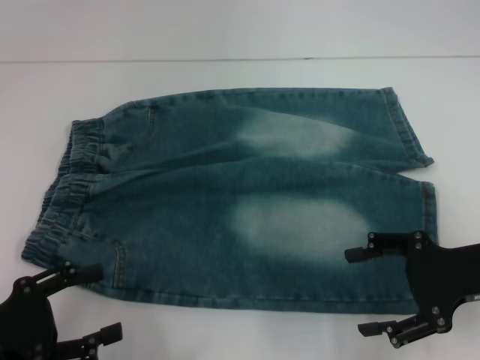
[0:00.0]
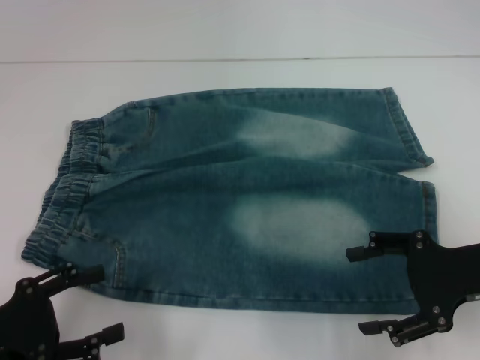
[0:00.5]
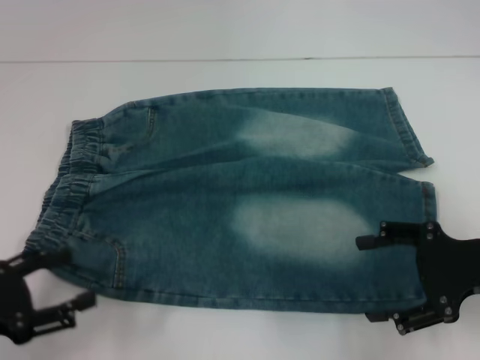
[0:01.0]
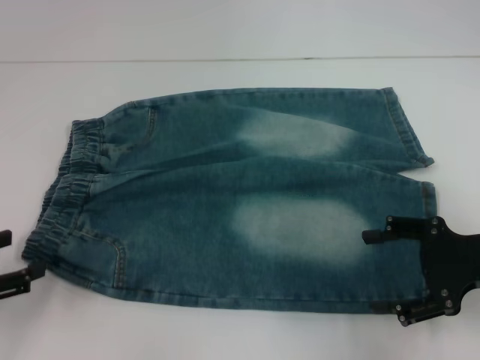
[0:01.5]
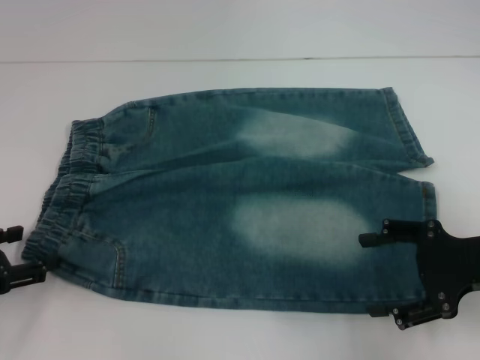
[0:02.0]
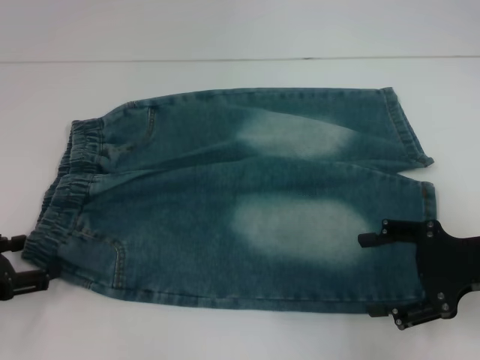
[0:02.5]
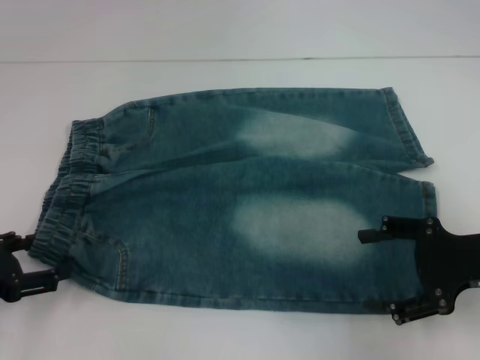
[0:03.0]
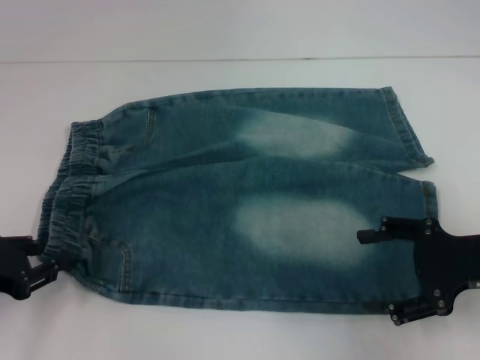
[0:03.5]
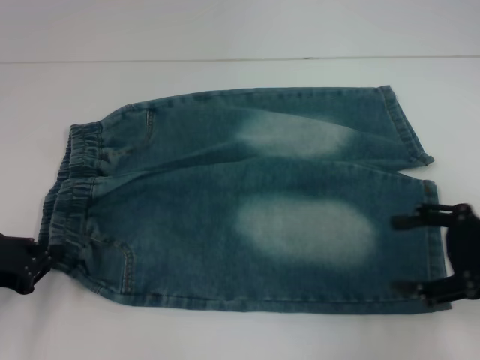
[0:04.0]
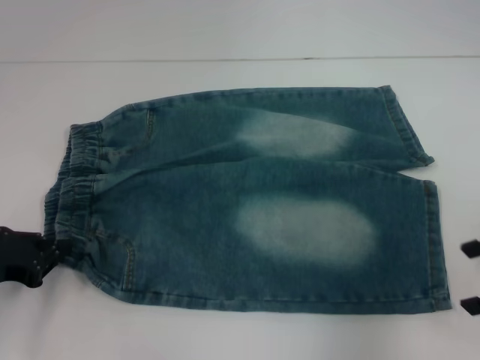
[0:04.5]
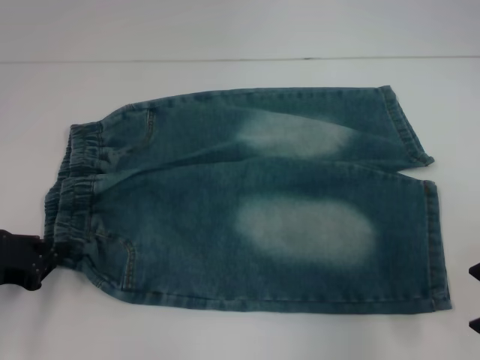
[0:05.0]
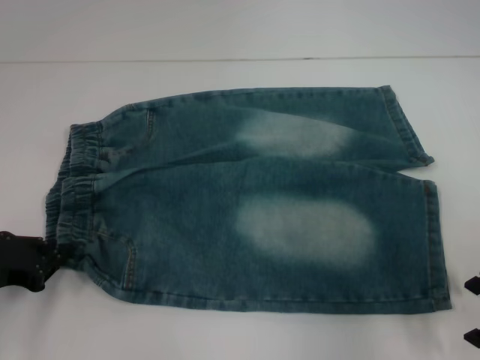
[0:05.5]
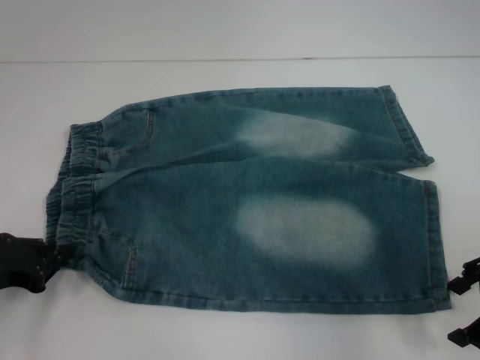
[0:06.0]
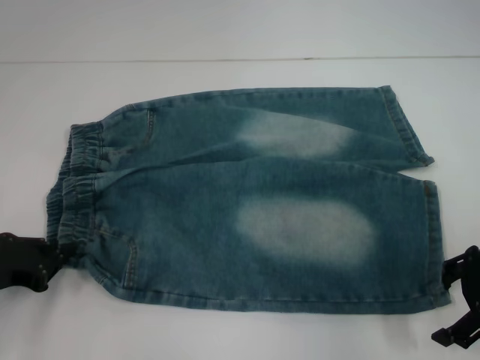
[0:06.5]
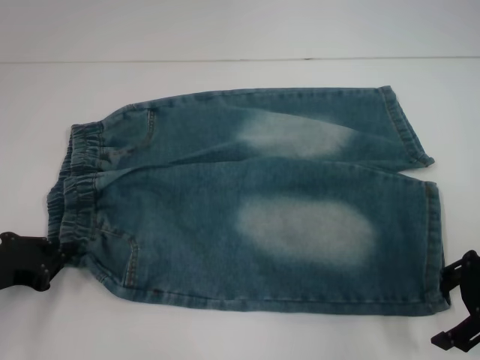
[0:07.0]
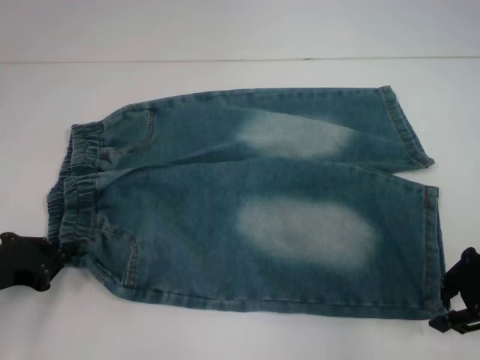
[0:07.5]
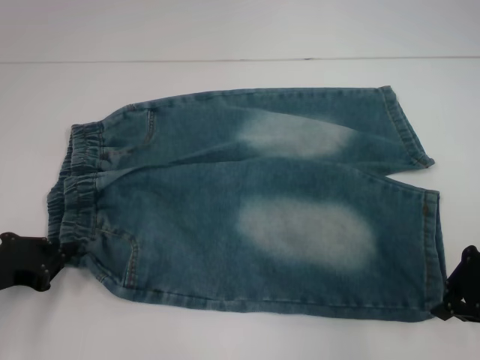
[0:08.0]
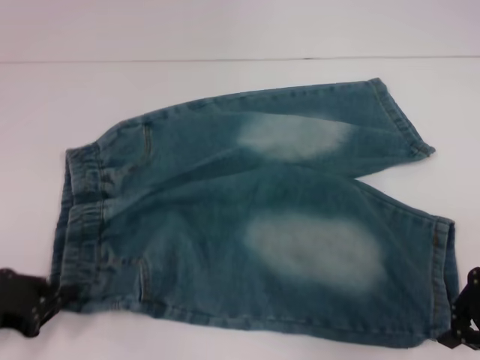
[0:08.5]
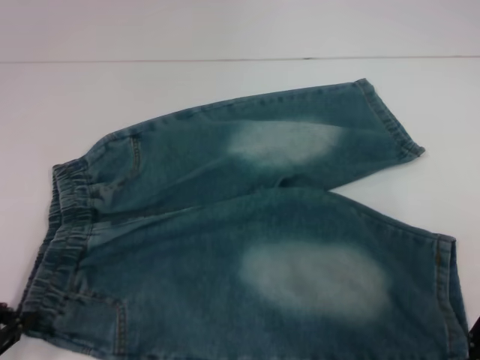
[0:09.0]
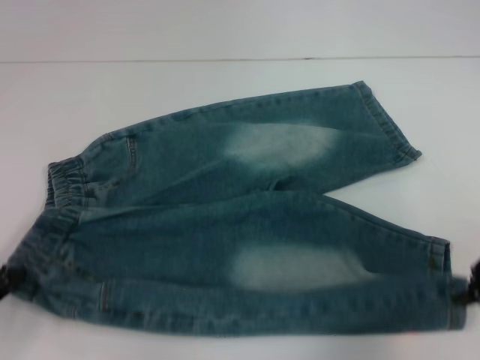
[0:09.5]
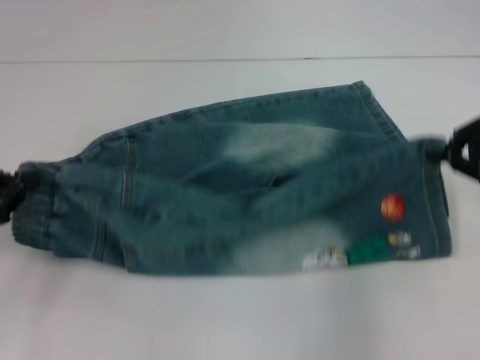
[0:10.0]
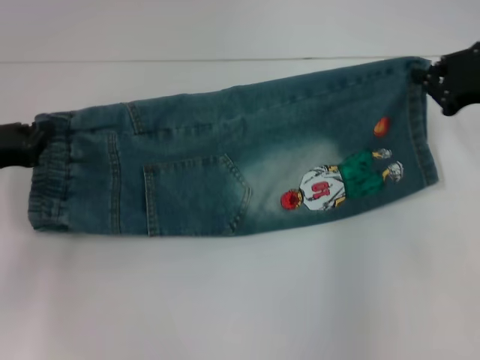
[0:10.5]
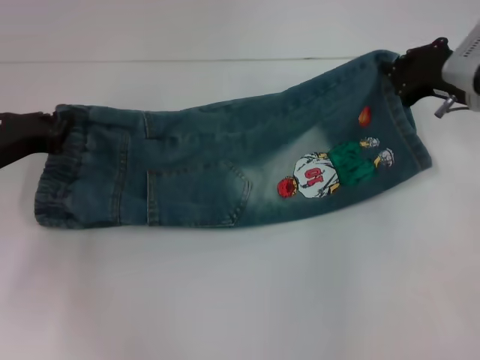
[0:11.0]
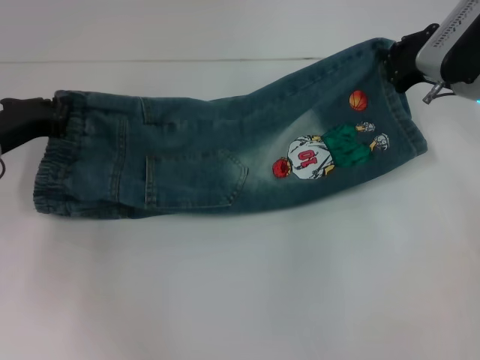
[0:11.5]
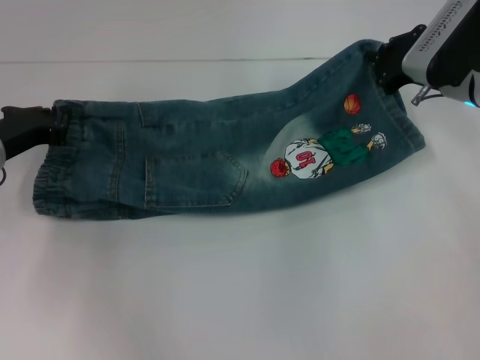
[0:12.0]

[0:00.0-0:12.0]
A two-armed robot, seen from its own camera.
Step, 0:00.0 to 0:03.5: Hold the lower left waistband with your left hand.
Step, 0:04.0 to 0:08.0: Grab the lower right pant leg with your right hand.
0:00.0 to 0:02.0: The left gripper moves forward, roughly 5 cm.
0:02.0 to 0:04.0: The left gripper closes.
0:06.0 to 0:08.0: The right gripper closes.
0:08.0 to 0:10.0: Both grippers travel together upward, approximately 5 cm.
0:10.0 to 0:12.0: The right gripper heads forward, to the left and downward, covering some 15 cm, while the left gripper shifts roughly 10 cm forward and to the right.

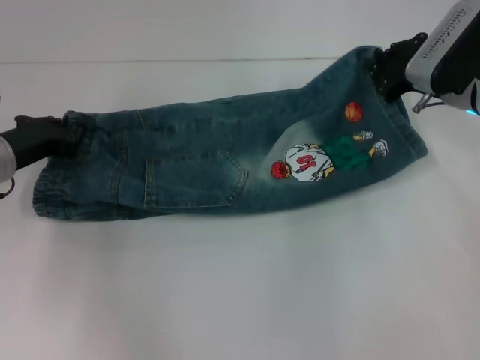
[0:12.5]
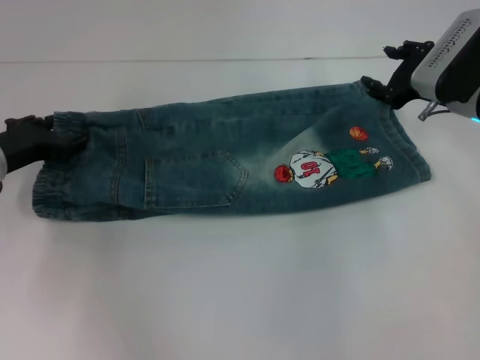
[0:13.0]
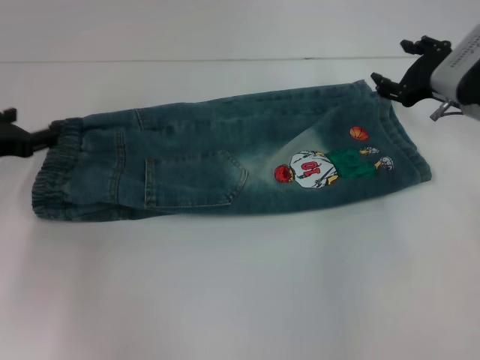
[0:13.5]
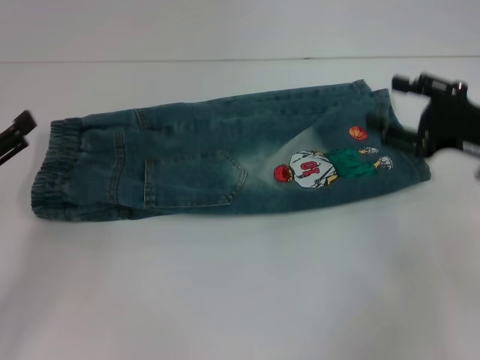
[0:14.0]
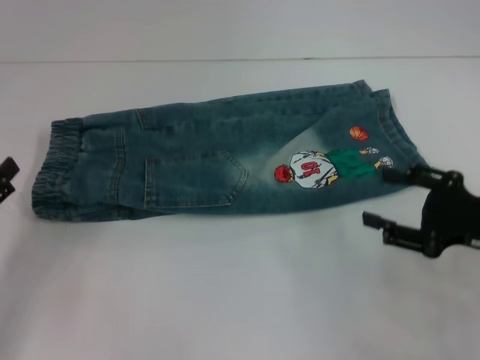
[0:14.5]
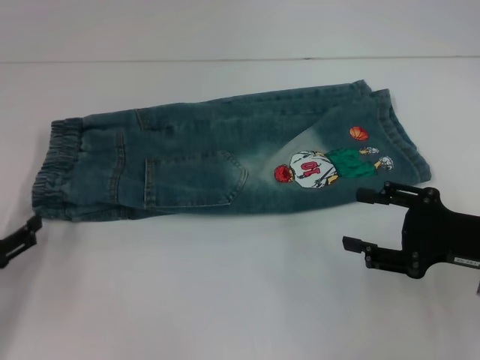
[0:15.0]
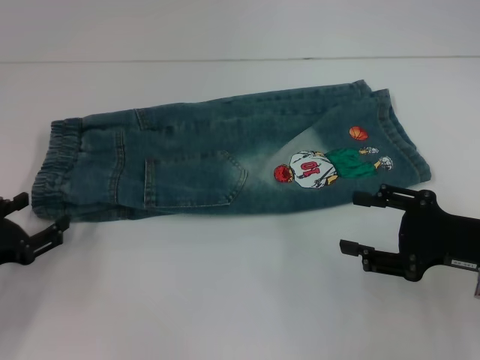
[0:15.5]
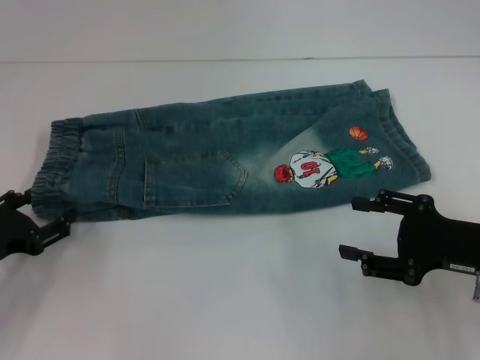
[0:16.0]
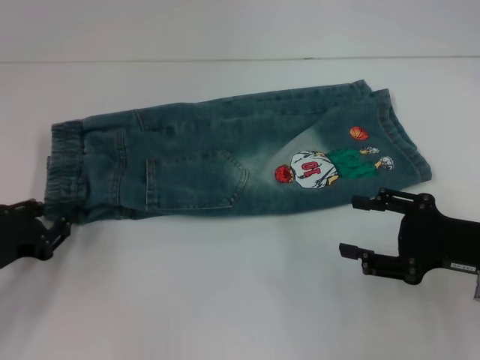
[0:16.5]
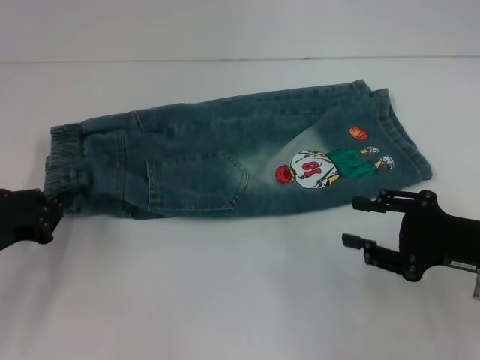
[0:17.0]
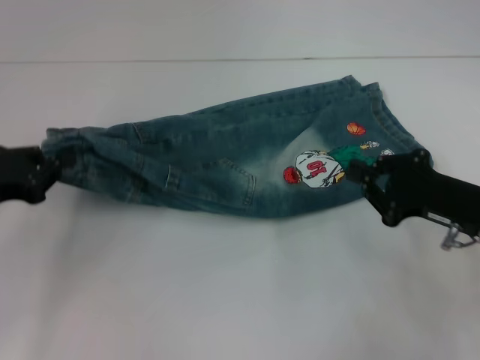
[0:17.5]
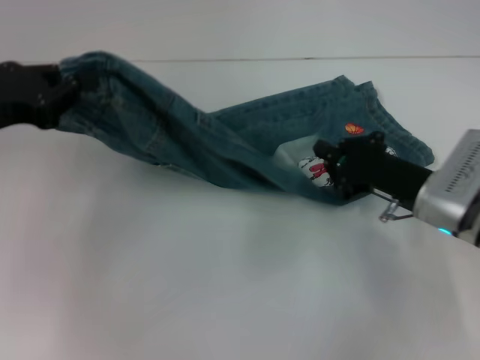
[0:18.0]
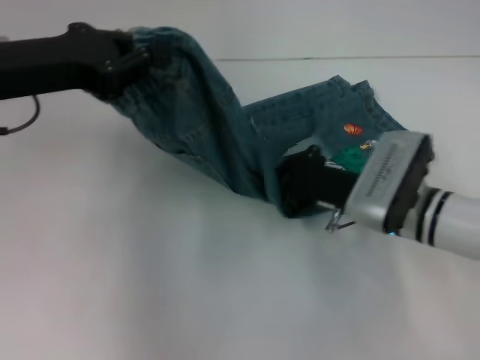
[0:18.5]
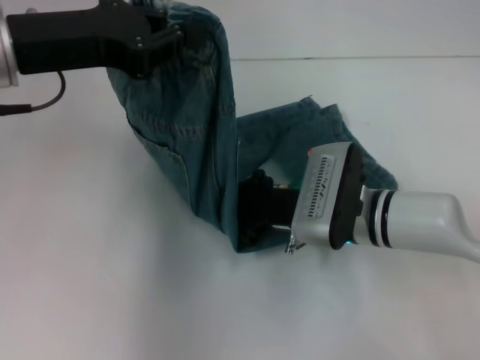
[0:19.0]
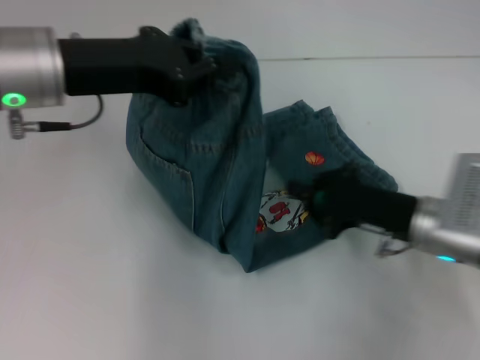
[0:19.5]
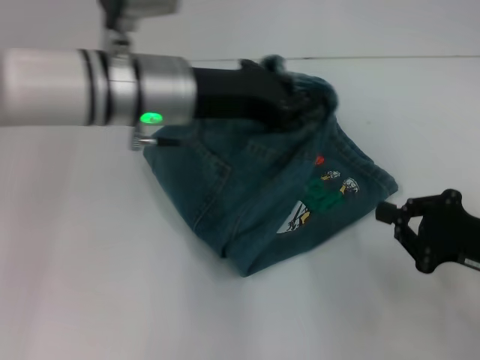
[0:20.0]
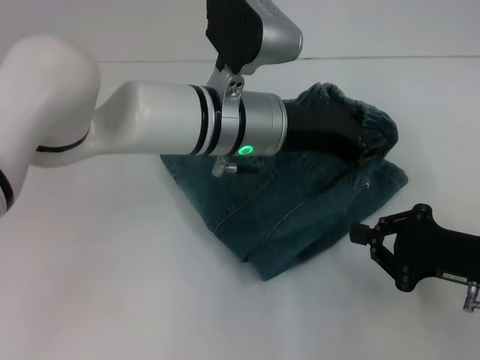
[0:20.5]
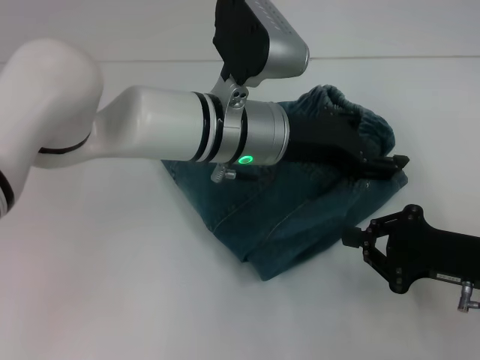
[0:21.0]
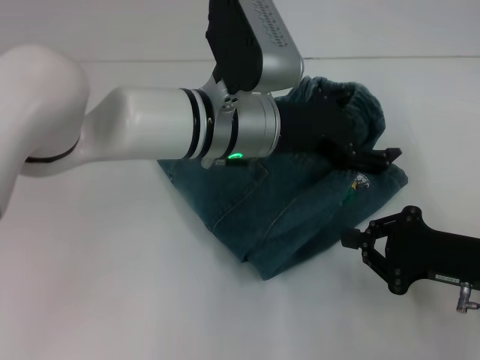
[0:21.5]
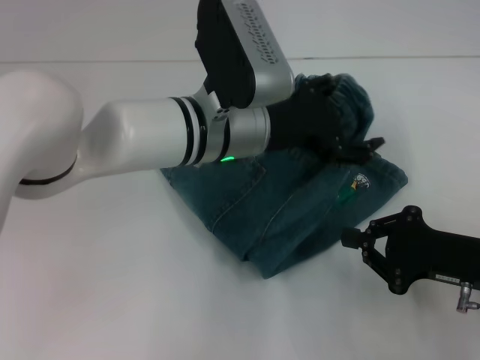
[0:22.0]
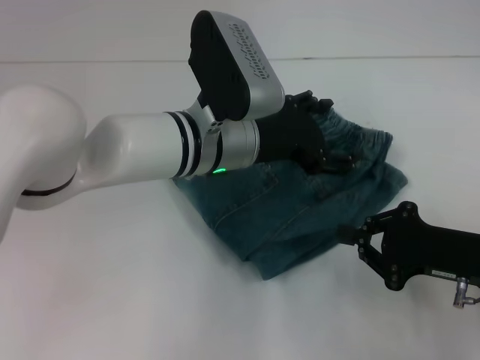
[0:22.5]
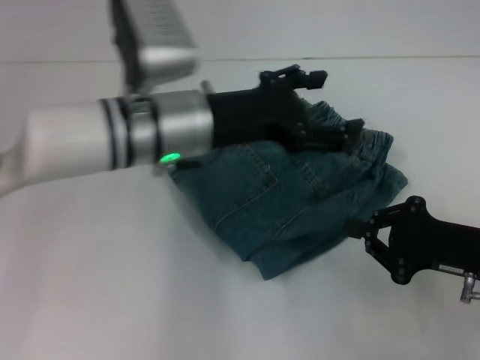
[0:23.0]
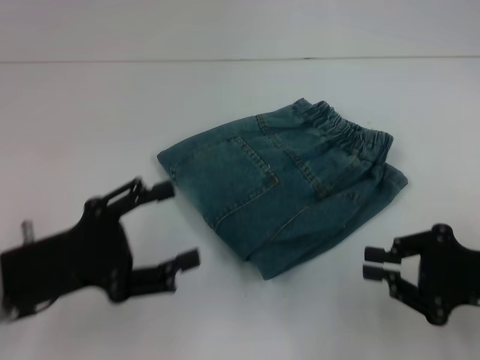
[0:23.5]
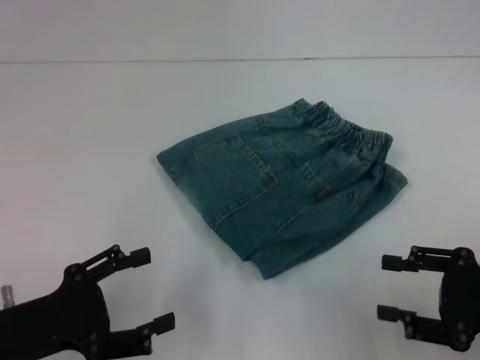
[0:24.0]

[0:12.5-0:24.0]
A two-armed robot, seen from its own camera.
Step, 0:13.5 to 0:16.5: Hold the waistband with your left hand.
Step, 0:17.0 to 0:19.0: Press the middle of the pants with your right hand.
Step, 0:19.5 to 0:22.0: Fold to the right with your left hand.
0:12.5 to 0:14.5: The left gripper shifts some 15 cm backward and to the left, and opens, while the right gripper is displaced backward by about 15 cm, and opens.
0:14.5 to 0:16.5: The left gripper ends up some 5 cm from where it was, and closes up.
0:16.5 to 0:18.5: The left gripper shifts approximately 20 cm upward, forward and to the right, and closes up. Meanwhile the right gripper shifts about 15 cm to the left and forward, and closes its fingers.
0:18.5 to 0:20.0: The left gripper goes some 15 cm to the right, while the right gripper shifts about 15 cm to the right and backward.
0:20.0 to 0:22.0: The left gripper heads to the right, covering about 5 cm, and opens up.
0:22.0 to 0:24.0: The left gripper is displaced to the left and backward by about 30 cm; the right gripper changes place by some 5 cm, and opens.

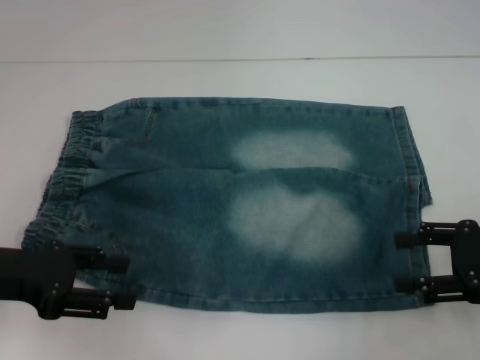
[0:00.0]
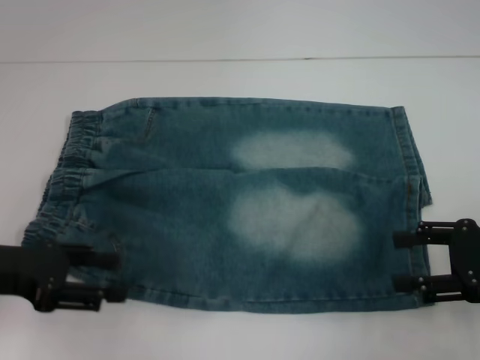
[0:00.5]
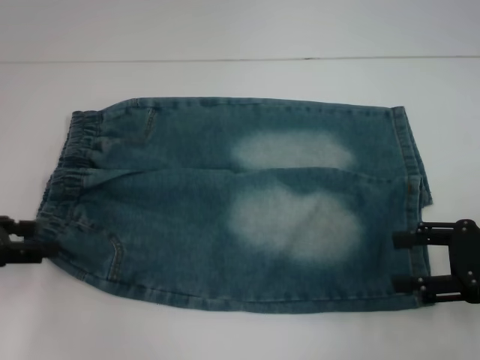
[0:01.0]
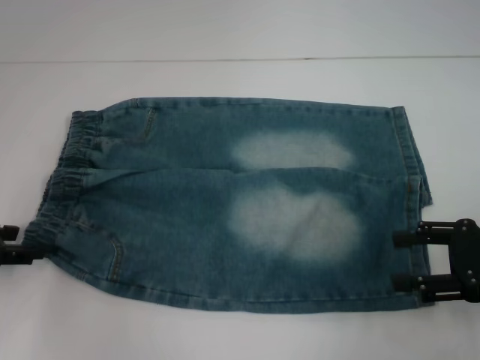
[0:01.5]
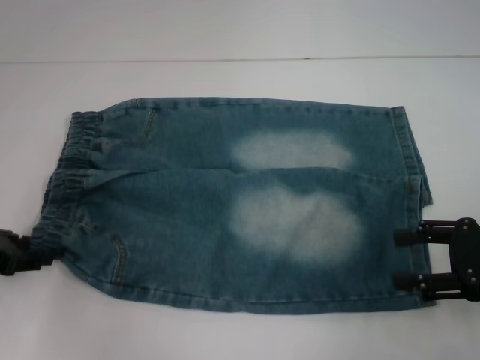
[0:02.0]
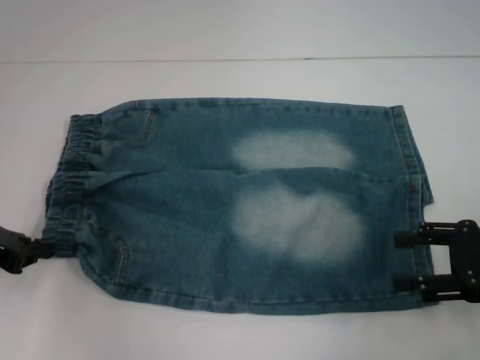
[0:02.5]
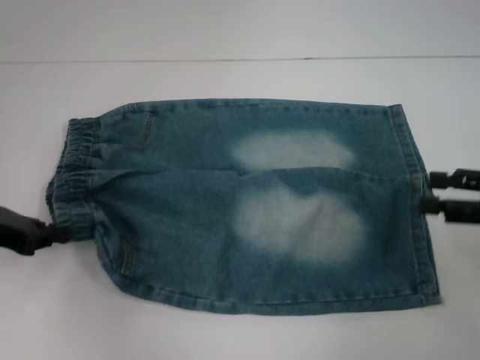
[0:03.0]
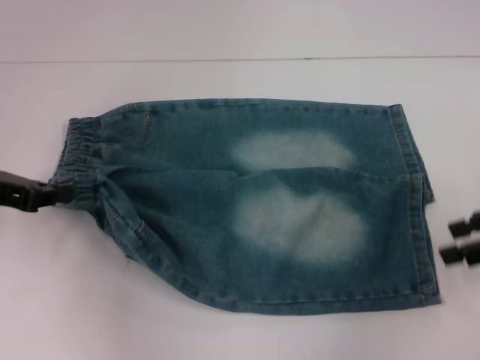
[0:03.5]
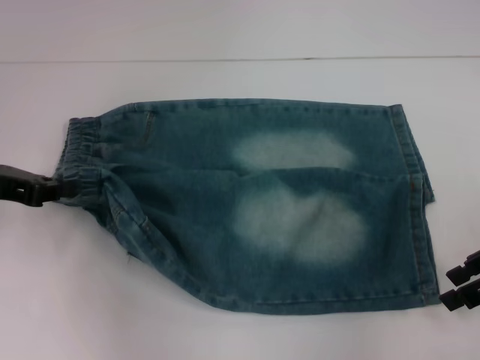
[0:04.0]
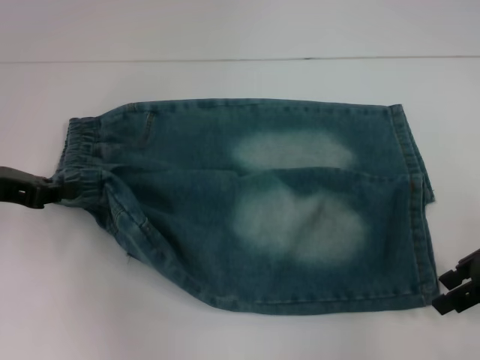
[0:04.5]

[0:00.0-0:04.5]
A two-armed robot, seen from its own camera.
Step, 0:00.0 to 0:02.5: Hold the lower left waistband with your left hand.
0:00.0 to 0:02.0: The left gripper moves some 5 cm.
0:02.0 to 0:04.5: The left gripper shifts by approximately 5 cm, and closes up. The right gripper travels forward by roughly 5 cm.
